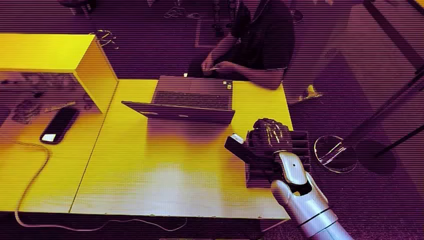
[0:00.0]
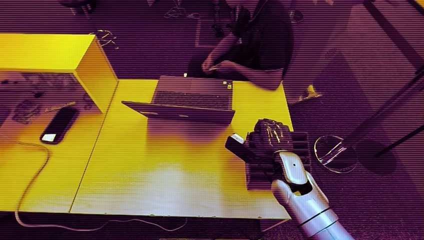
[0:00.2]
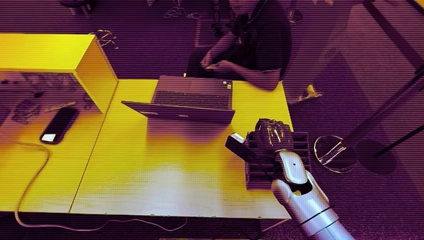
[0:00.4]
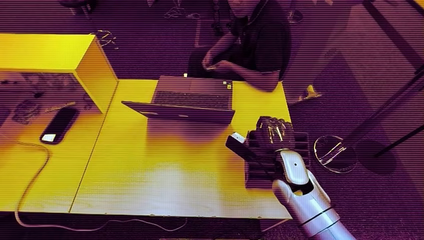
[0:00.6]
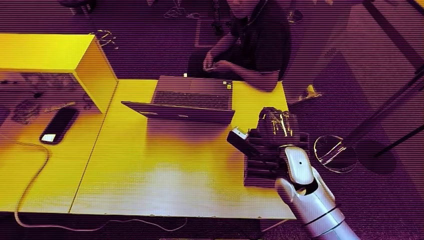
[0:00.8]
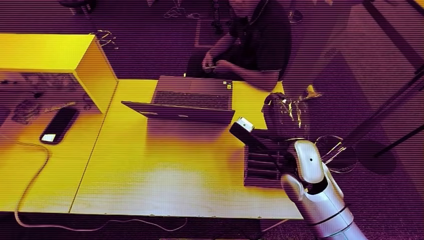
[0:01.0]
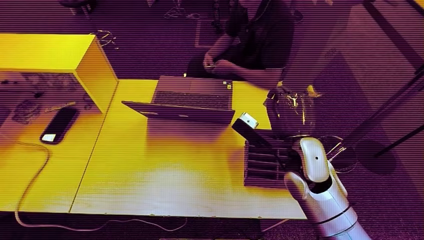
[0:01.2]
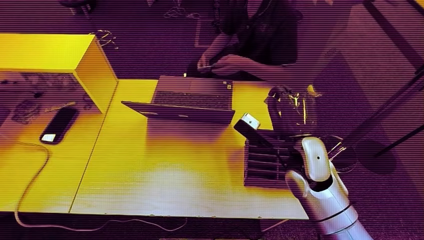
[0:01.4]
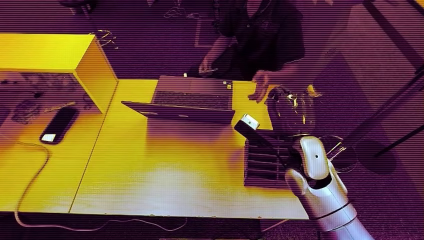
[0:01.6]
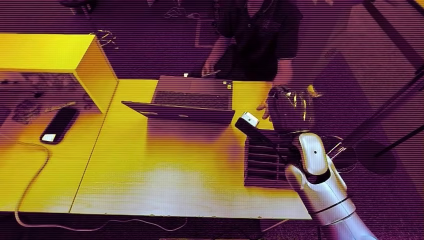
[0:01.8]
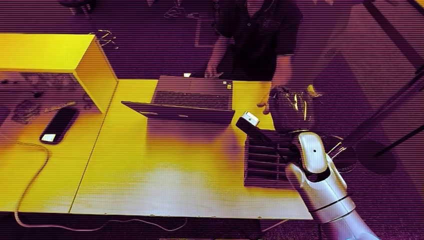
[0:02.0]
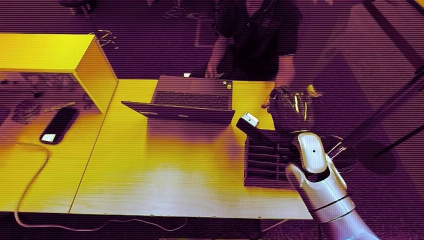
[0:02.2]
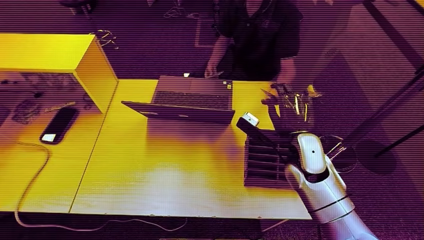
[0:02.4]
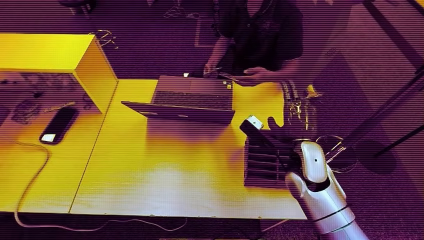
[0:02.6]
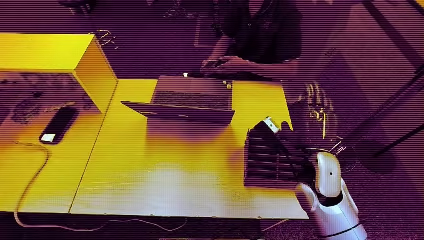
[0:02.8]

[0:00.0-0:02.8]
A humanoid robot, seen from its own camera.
Step, 0:00.0 to 0:01.2: Pick up the room card from the card holder.
Step, 0:01.4 to 0:02.6: Hand the room card to the target.
0:01.4 to 0:02.8: The hands stay close to where they were, moving slightly.

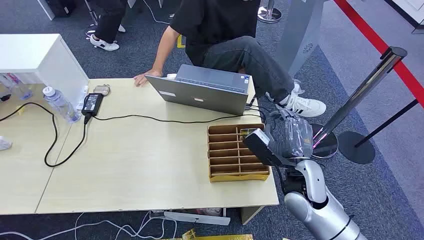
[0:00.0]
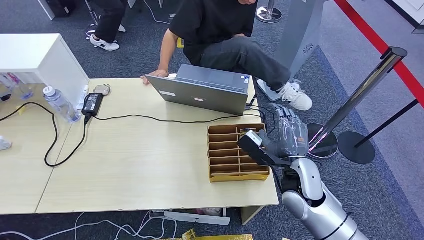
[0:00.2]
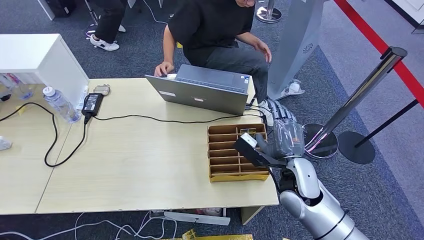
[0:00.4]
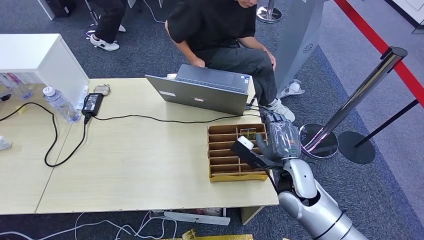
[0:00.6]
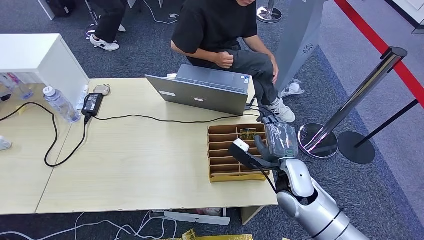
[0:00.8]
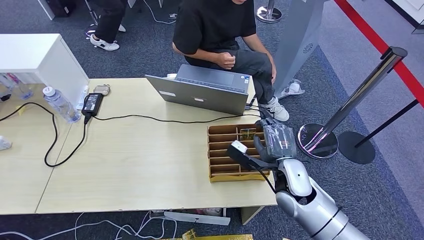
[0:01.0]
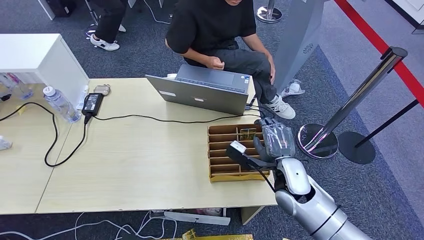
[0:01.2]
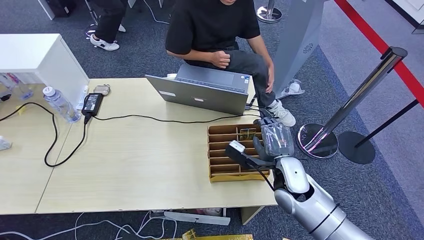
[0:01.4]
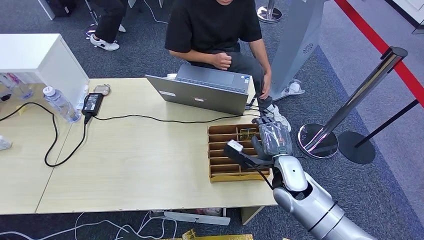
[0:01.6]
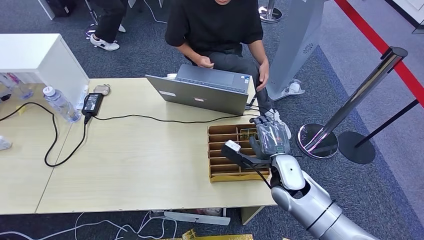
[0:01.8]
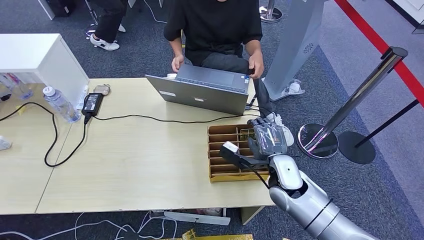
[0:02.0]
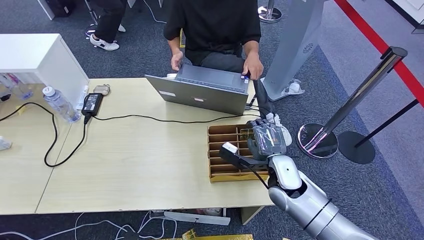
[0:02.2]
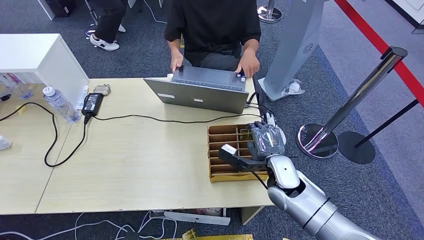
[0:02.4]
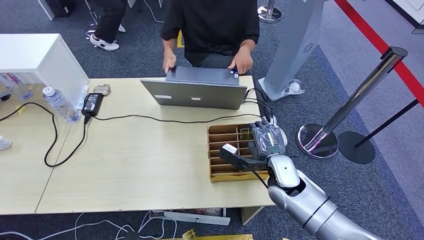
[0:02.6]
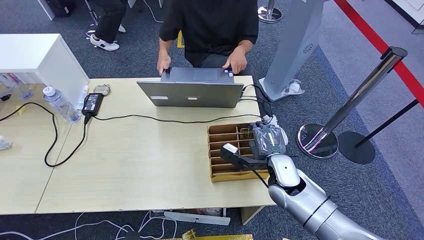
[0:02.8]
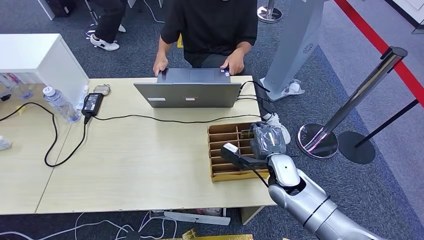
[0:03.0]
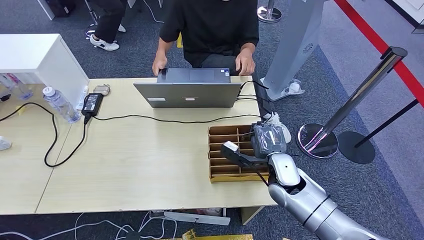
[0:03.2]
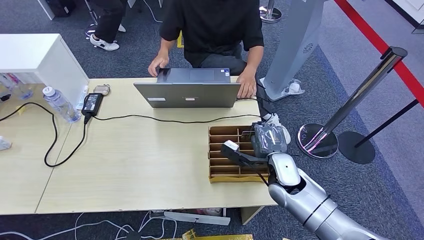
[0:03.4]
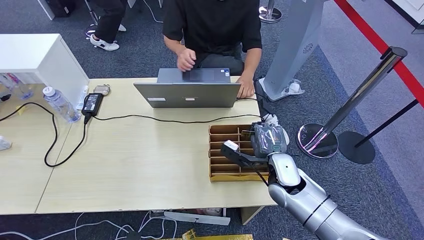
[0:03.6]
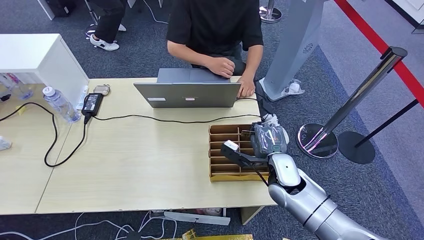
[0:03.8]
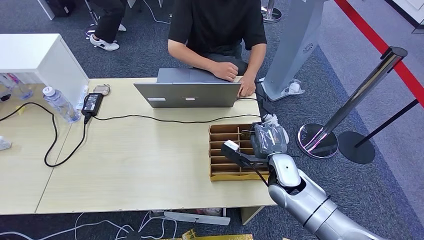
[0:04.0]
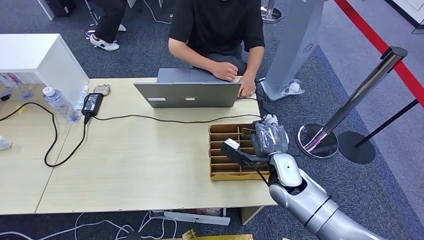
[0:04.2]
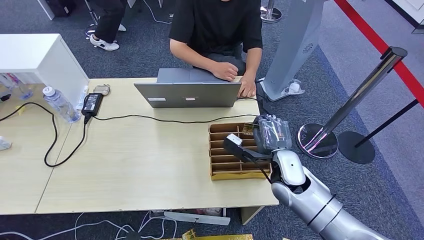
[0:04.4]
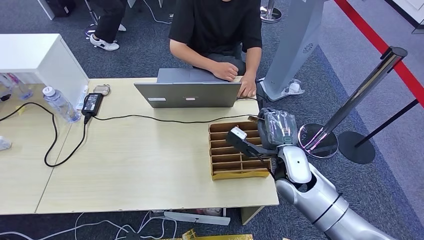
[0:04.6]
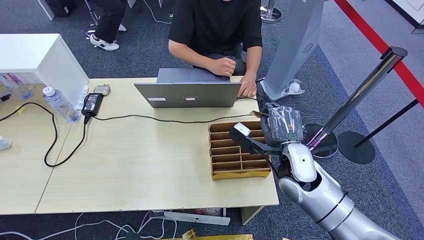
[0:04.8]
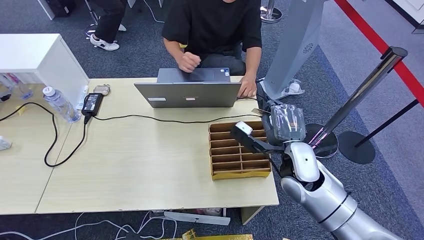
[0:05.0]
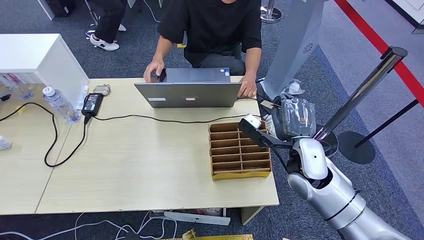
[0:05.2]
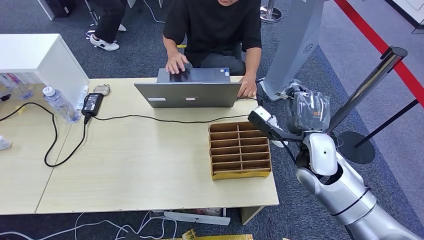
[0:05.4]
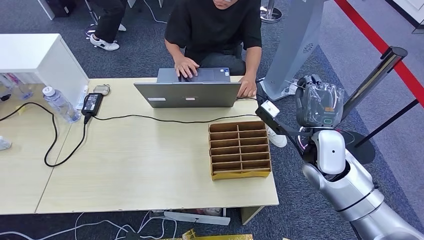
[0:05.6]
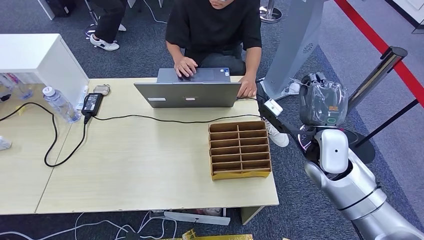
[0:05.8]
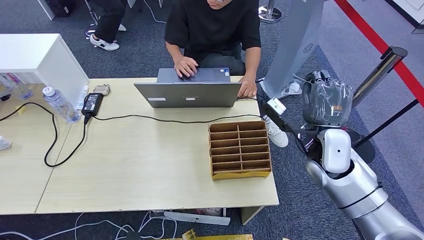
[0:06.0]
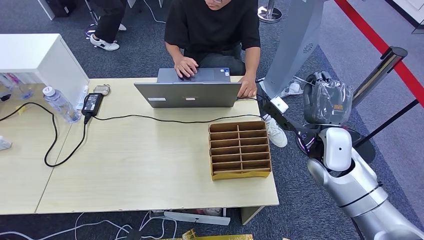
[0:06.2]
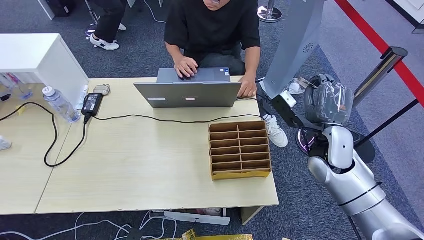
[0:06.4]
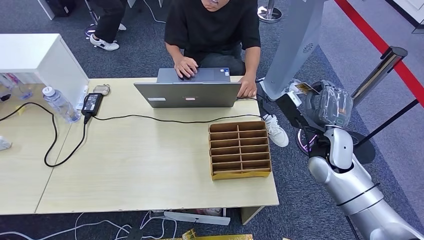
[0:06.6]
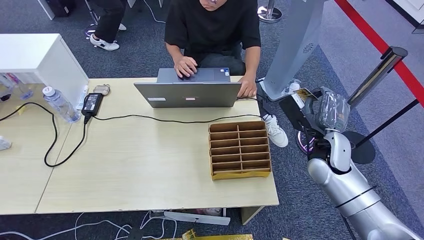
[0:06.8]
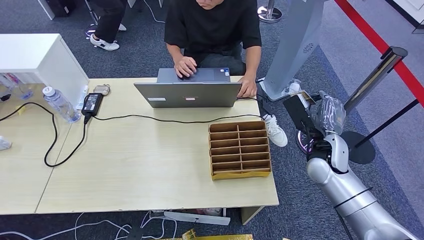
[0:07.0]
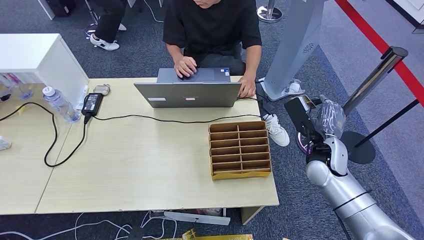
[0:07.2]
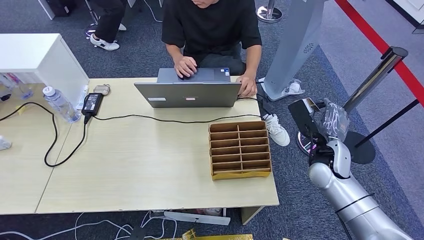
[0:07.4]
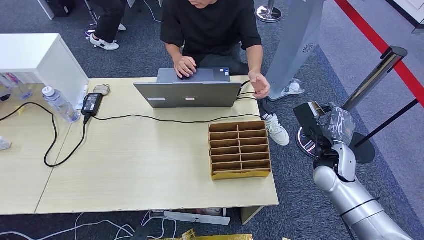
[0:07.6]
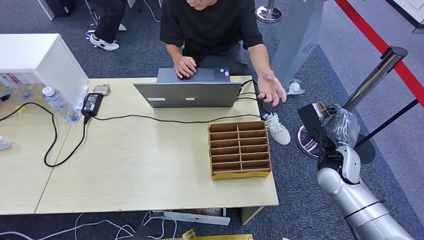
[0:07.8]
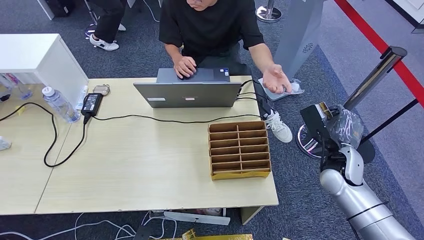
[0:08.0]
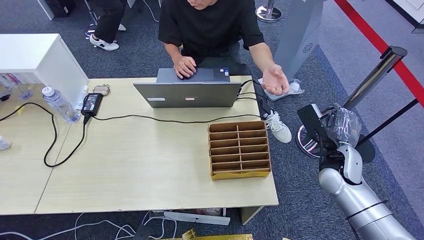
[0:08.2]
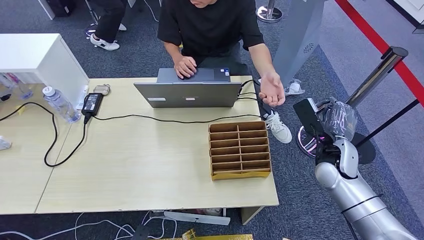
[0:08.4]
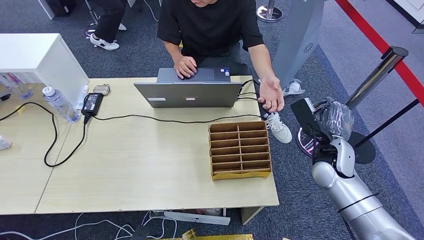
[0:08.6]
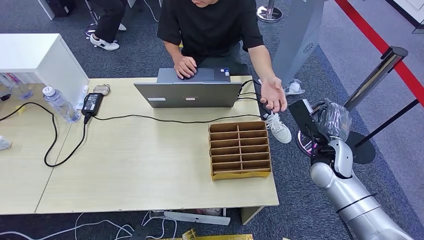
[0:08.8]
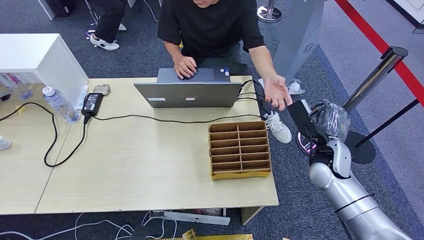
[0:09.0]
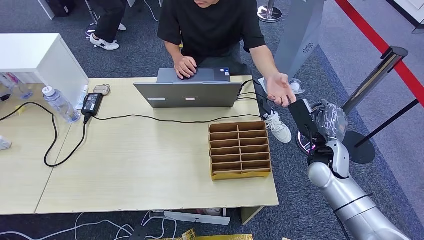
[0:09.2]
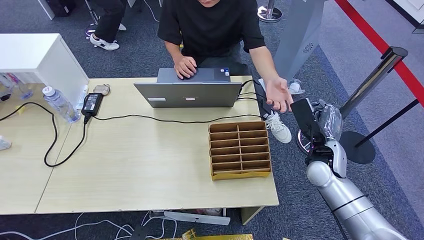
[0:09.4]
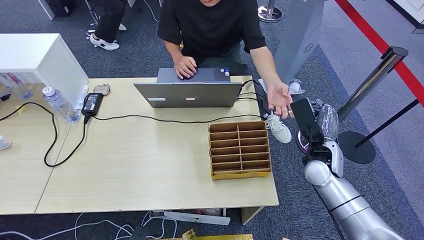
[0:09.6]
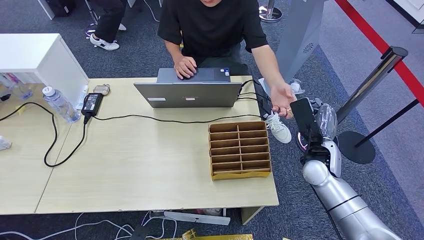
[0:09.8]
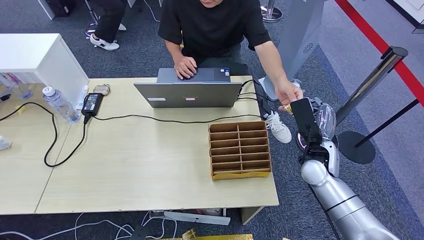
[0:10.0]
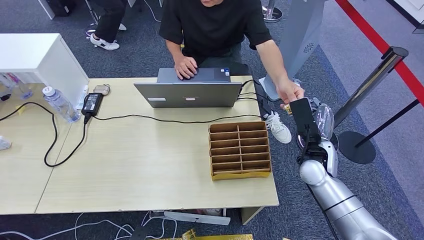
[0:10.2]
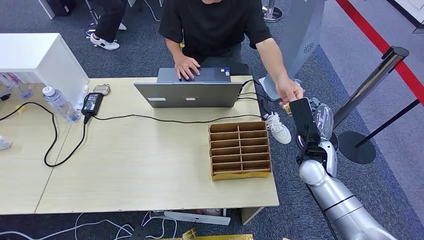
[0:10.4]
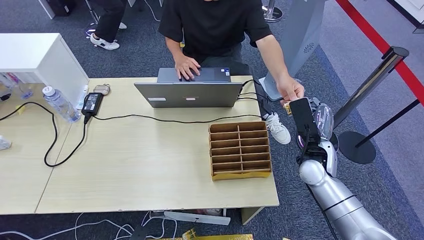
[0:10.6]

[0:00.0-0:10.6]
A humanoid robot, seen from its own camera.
Step, 0:00.0 to 0:06.4: Pick up the room card from the card holder.
0:01.6 to 0:04.6: The hands make only small movements.
0:04.6 to 0:06.0: The right hand shifts about 10 cm to the right and upward.
0:06.0 to 0:07.6: The right hand shifts about 5 cm downward.
0:07.6 to 0:09.0: The hands make only small movements.

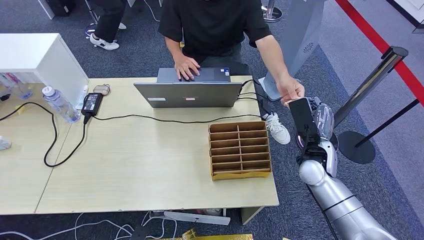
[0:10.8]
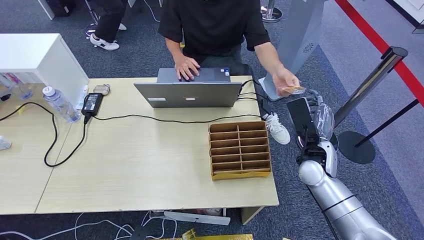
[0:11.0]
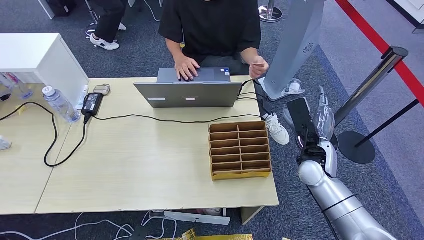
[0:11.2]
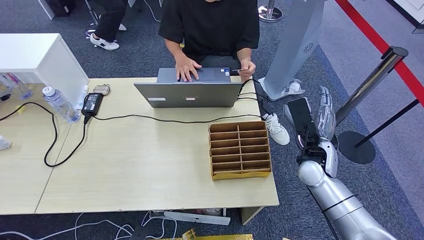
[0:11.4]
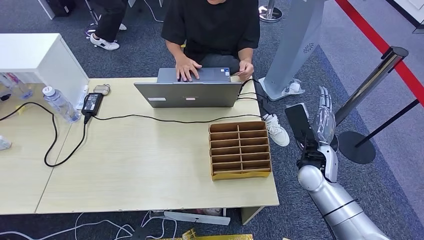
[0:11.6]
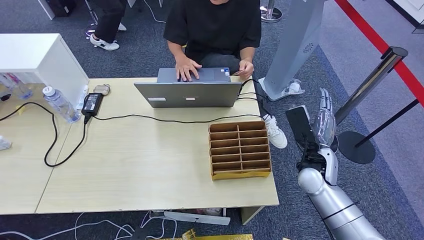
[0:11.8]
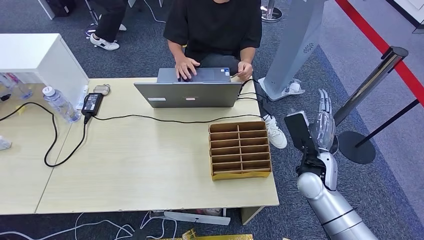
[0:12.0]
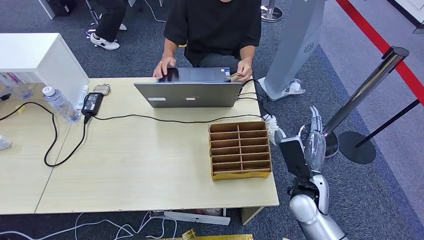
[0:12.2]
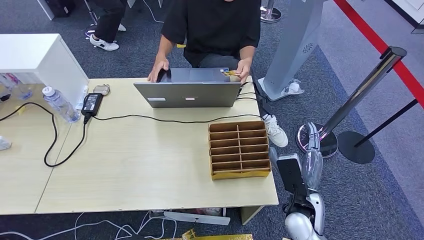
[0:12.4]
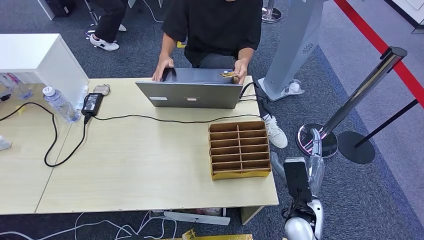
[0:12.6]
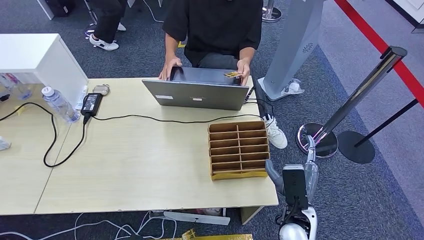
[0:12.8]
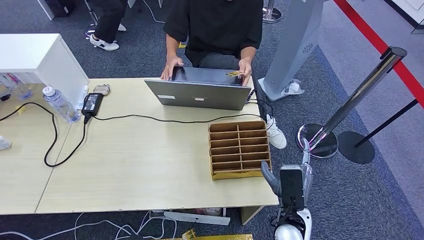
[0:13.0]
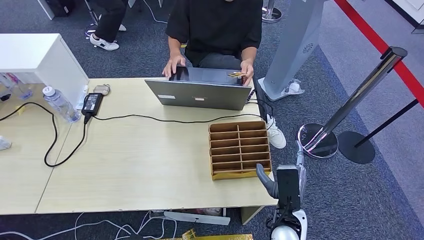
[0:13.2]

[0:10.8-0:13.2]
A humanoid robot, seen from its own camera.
Step, 0:10.8 to 0:13.2: Hand the room card to the target.
0:10.8 to 0:12.0: There are only small adjustments of the hands.
0:12.0 to 0:13.2: The right hand travels backward, to the left and downward by some 15 cm.
